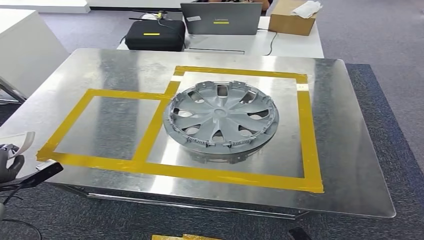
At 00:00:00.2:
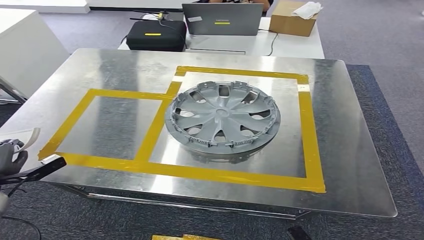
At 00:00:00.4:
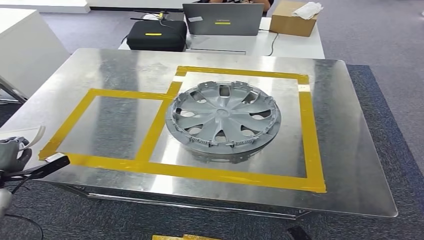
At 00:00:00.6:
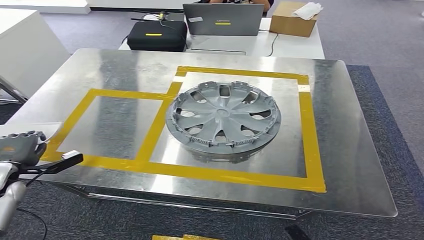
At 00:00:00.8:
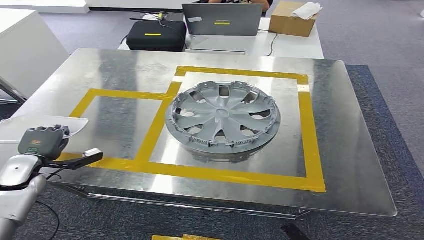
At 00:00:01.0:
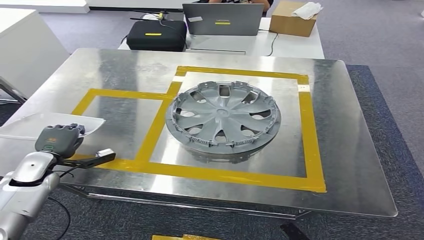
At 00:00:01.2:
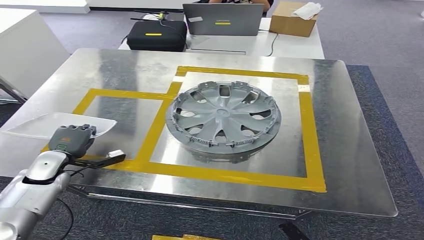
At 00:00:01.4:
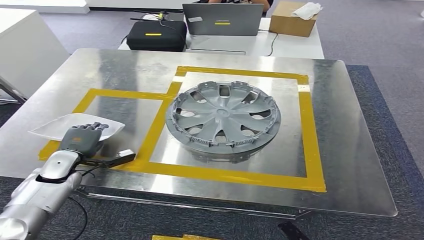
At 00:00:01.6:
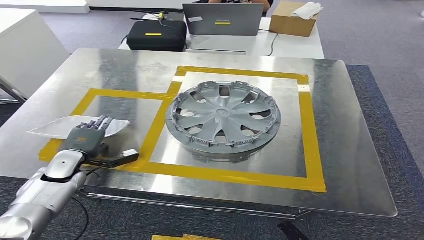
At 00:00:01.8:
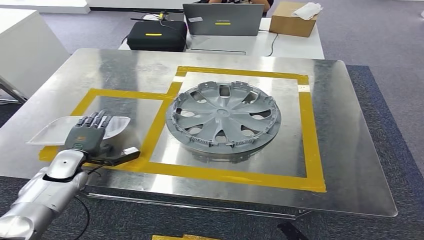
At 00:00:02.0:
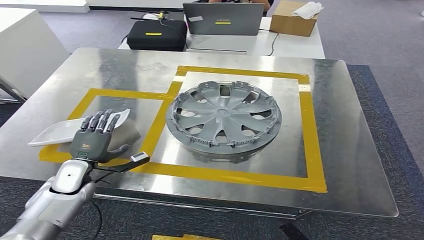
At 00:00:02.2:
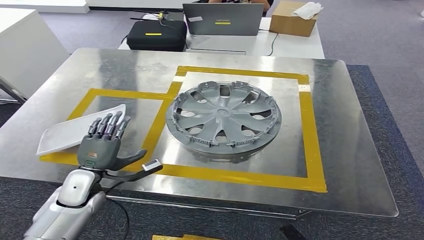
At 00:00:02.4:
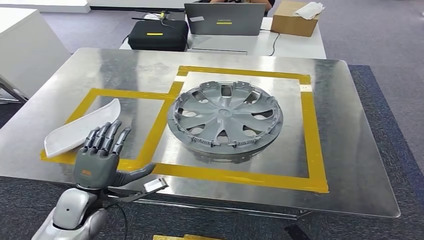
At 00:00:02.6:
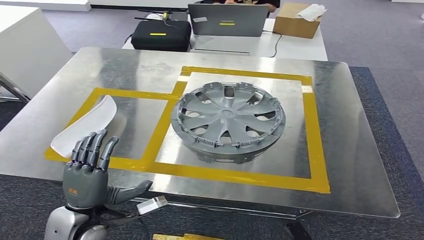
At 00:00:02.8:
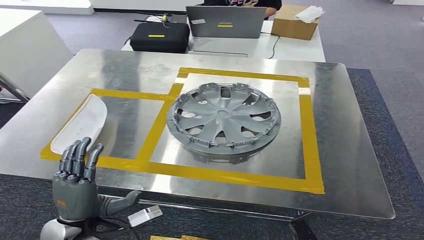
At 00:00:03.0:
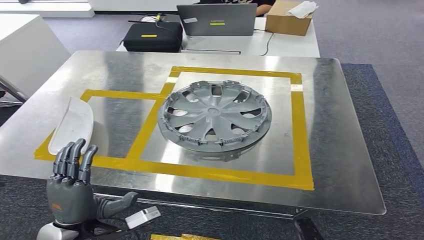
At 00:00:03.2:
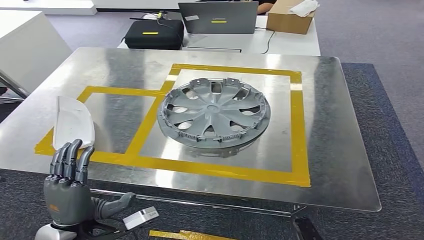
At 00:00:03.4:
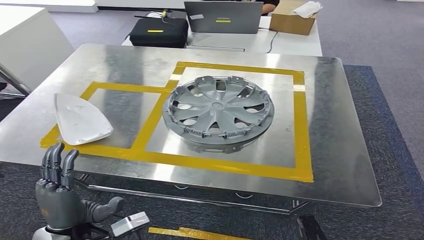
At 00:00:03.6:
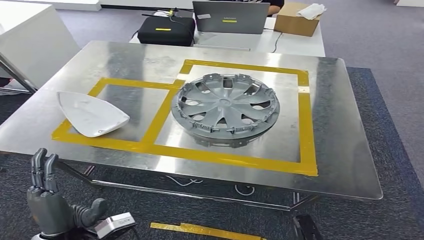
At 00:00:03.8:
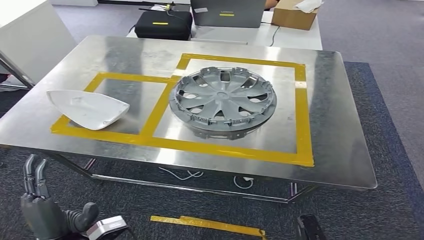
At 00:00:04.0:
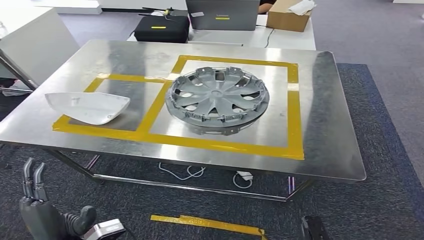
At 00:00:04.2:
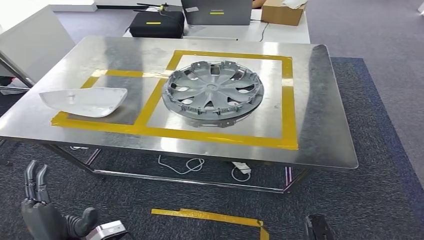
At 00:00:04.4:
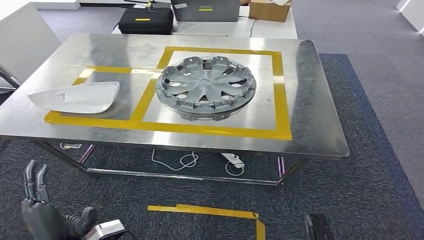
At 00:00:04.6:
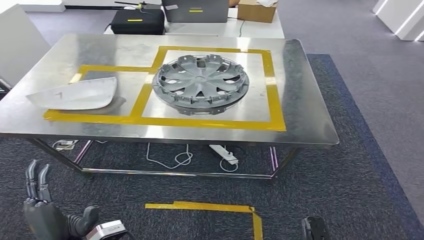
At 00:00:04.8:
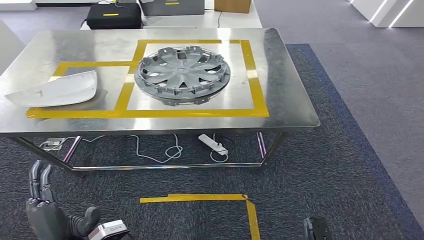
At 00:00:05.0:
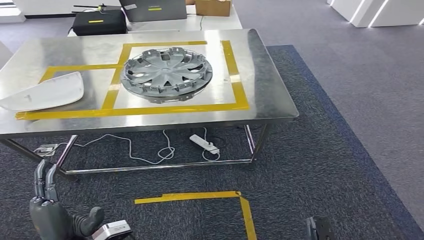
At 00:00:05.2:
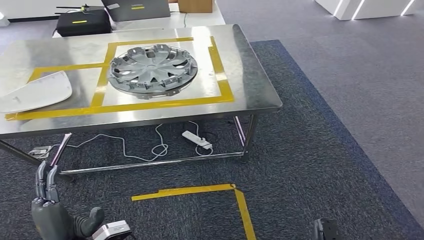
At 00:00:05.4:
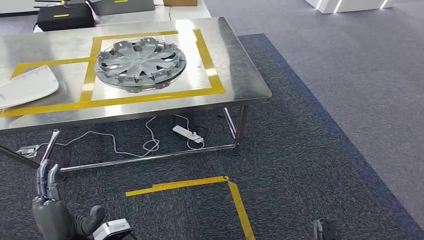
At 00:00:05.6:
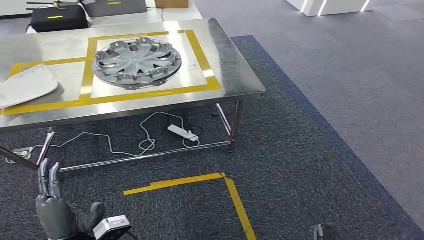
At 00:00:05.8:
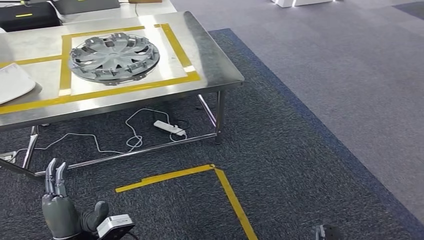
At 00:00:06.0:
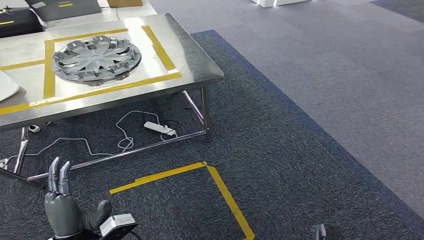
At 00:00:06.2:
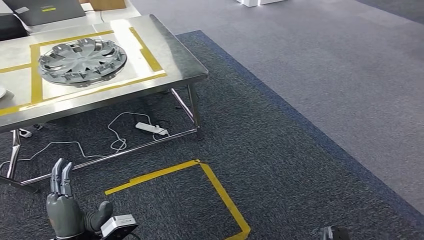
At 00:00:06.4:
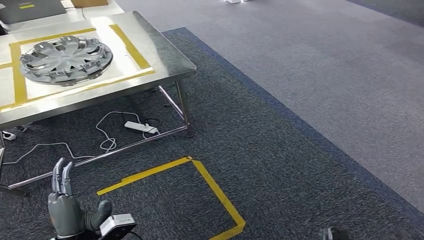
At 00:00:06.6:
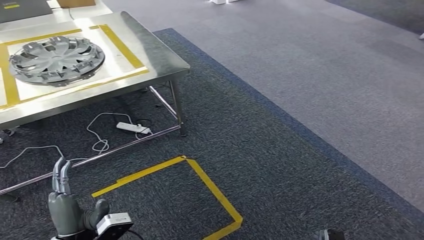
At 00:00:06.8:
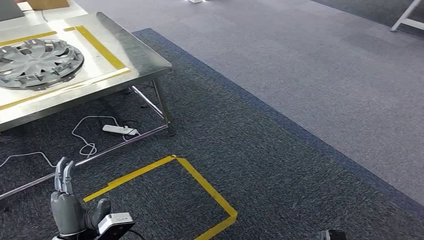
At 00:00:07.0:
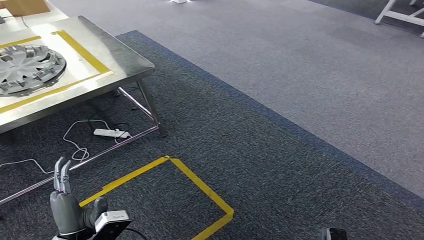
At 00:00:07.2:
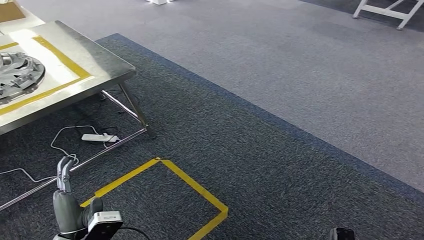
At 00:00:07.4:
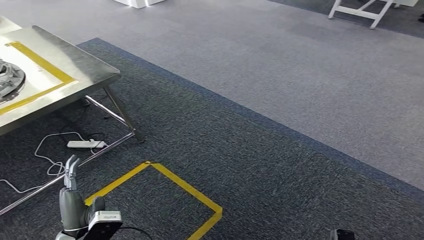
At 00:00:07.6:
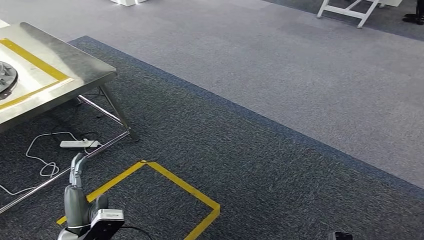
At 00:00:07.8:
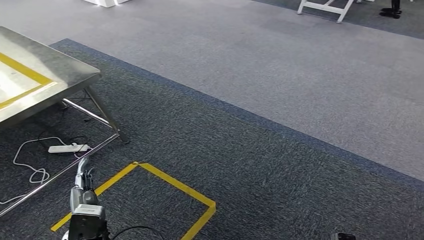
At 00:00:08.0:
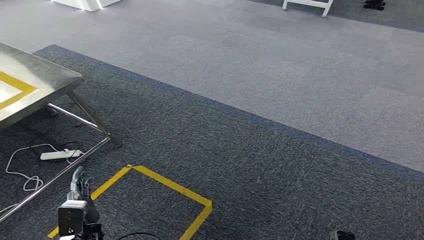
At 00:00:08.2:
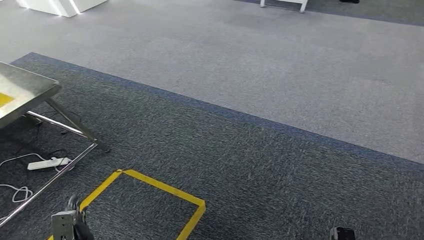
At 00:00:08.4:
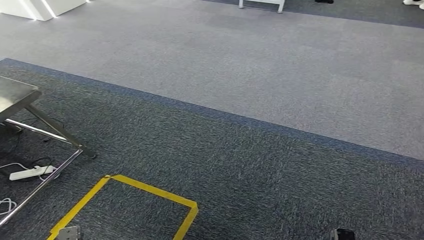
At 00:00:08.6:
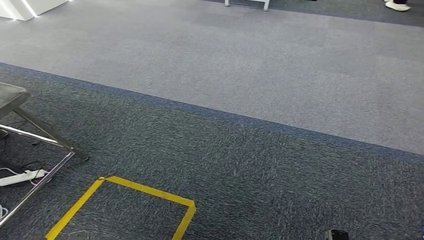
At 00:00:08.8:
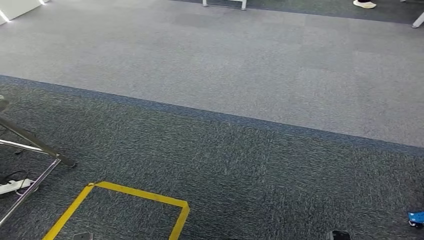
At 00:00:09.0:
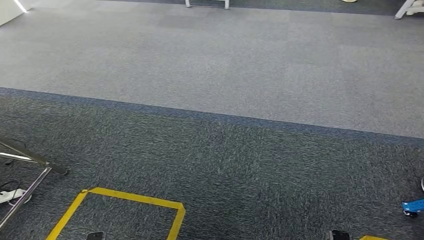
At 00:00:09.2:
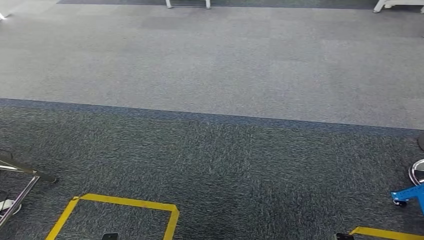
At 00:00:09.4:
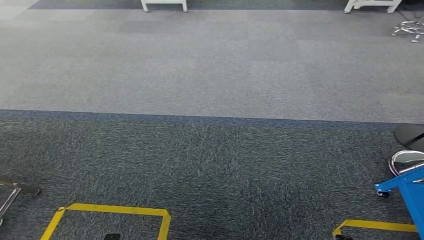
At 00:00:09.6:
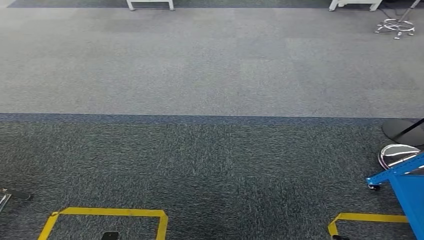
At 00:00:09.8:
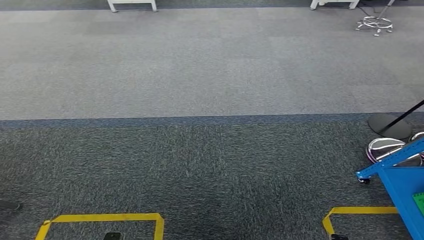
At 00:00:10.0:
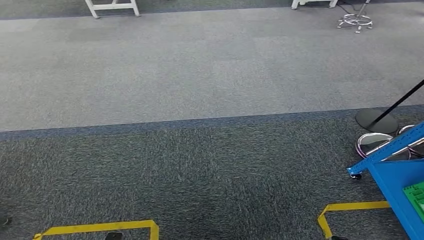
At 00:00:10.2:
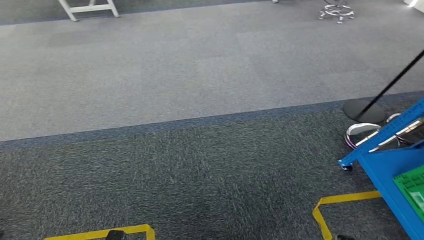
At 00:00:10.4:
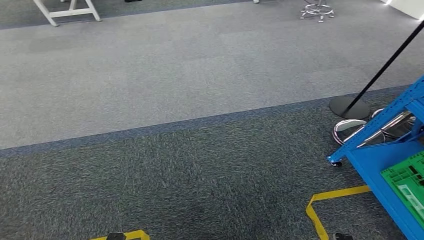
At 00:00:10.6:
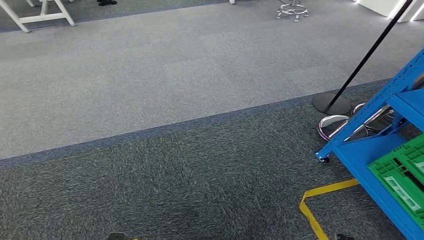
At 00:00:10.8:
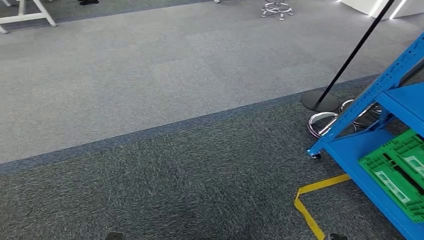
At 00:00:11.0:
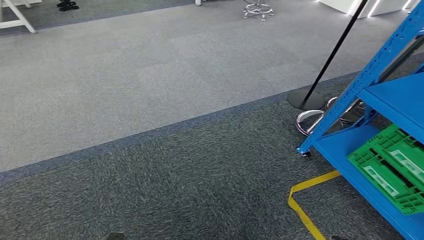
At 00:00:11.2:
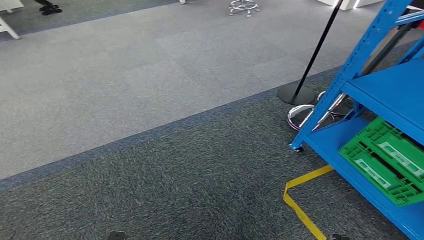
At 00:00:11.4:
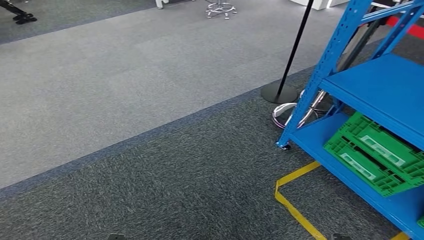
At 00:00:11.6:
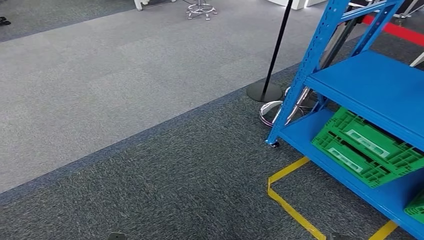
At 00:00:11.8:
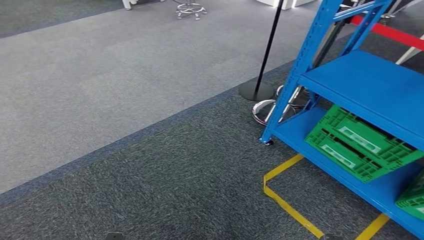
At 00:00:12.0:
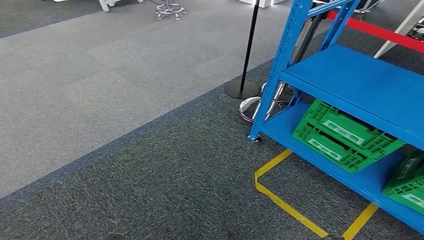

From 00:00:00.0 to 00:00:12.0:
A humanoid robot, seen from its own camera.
Step, from 00:00:00.0 to 00:00:04.4: Insert the small component into the corresponding slot on the workbench.
From 00:00:00.0 to 00:00:01.6: The left hand shifts approximately 20 cm to the right and forward.

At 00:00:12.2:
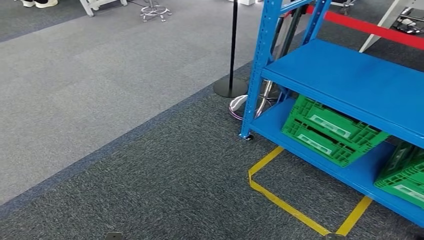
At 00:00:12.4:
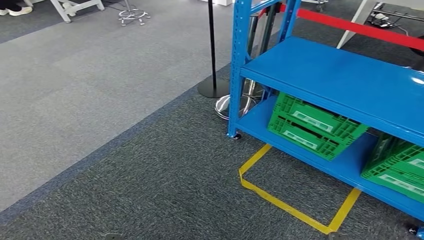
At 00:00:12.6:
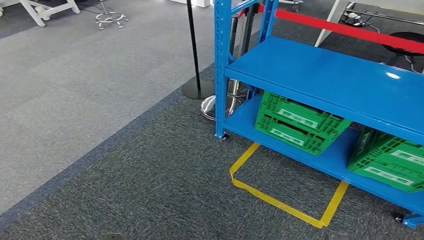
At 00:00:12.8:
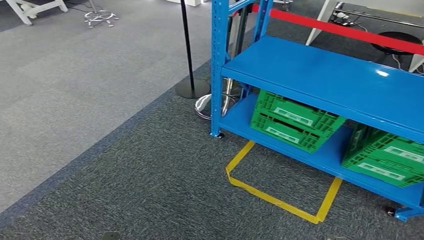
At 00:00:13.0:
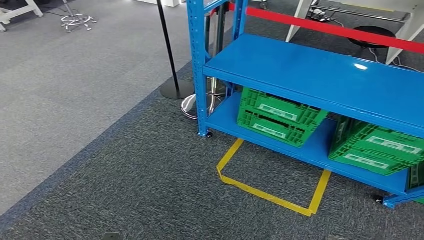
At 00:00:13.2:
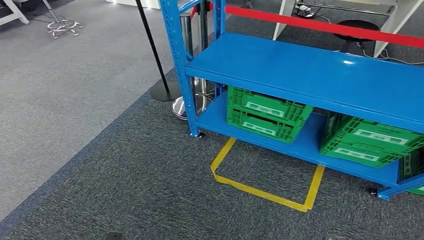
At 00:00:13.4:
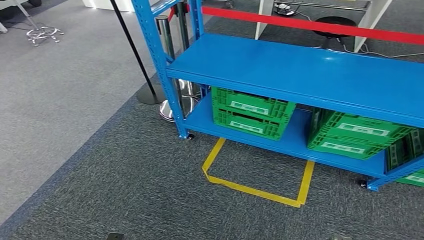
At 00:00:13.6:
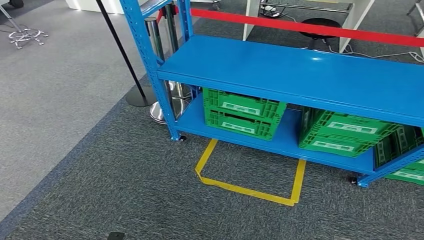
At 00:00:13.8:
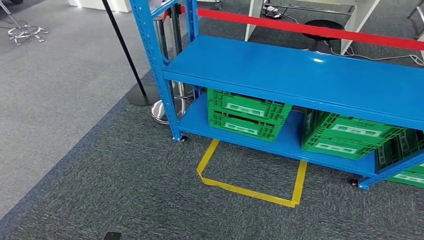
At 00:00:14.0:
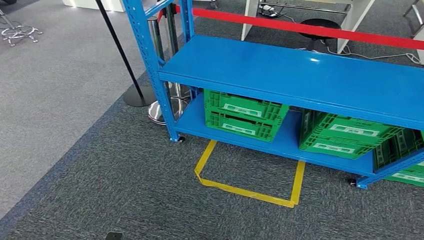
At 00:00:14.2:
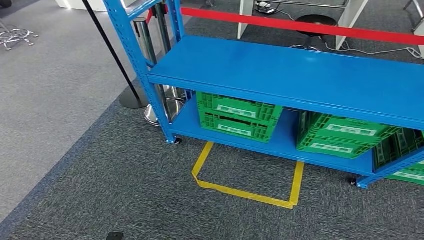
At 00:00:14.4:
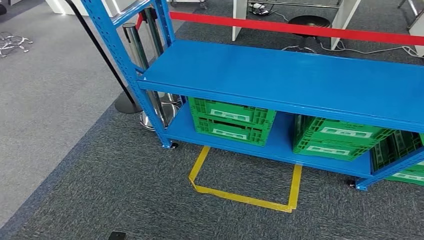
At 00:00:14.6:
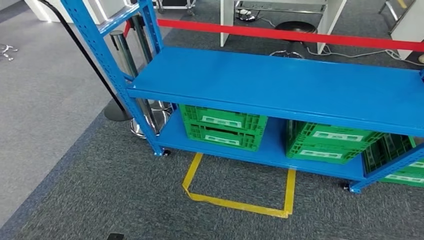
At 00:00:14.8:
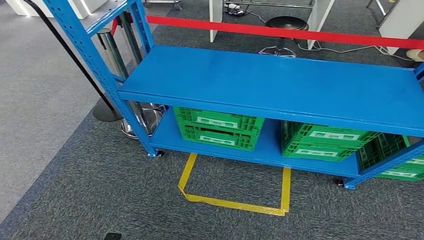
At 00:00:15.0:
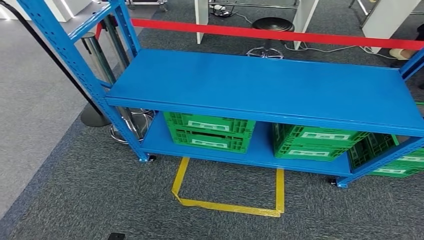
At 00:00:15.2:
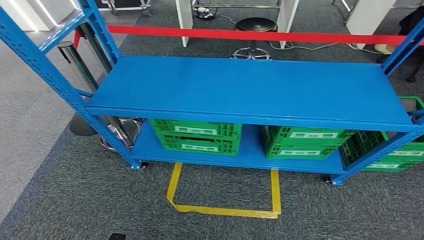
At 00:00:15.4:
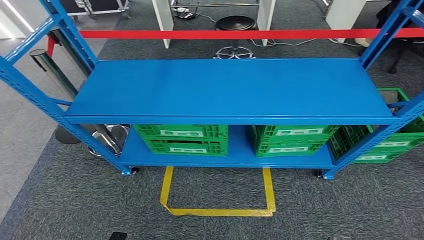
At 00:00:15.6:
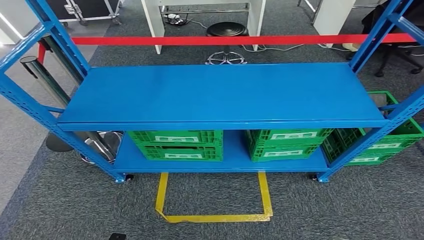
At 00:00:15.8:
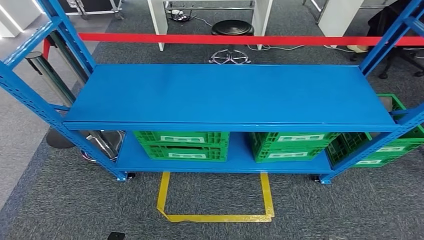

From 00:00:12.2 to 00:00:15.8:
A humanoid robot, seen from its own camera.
Step, from 00:00:12.2 to 00:00:15.8: Move to the initial position of the workbench.
